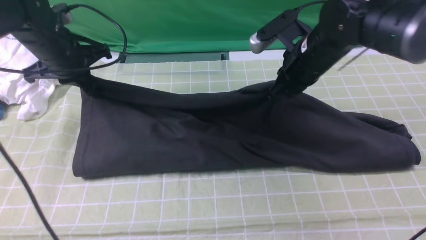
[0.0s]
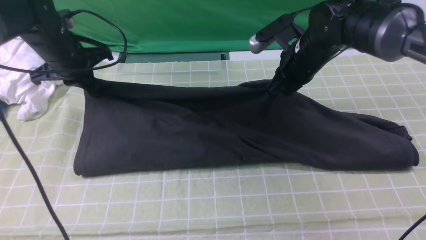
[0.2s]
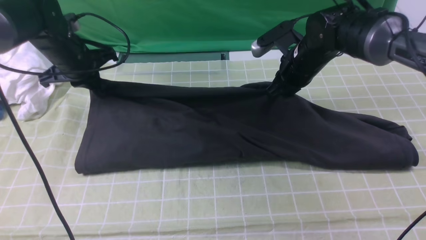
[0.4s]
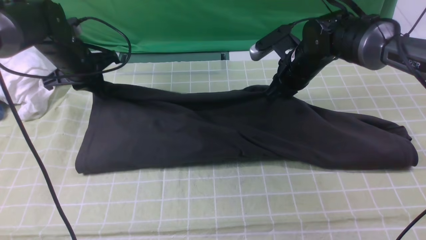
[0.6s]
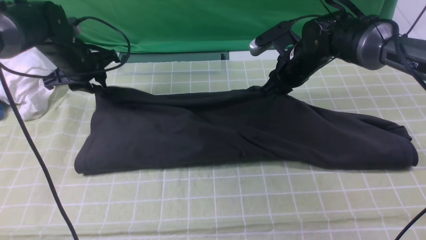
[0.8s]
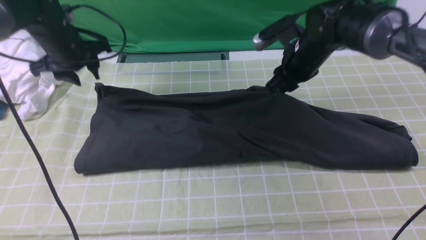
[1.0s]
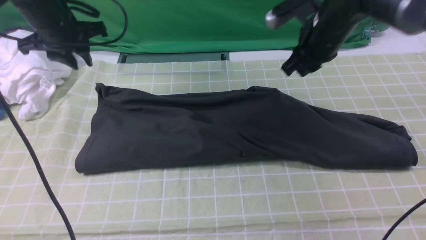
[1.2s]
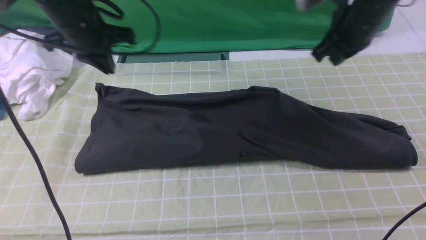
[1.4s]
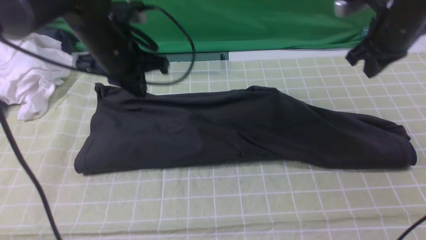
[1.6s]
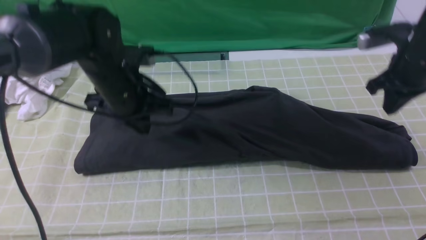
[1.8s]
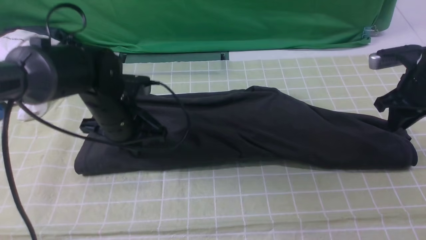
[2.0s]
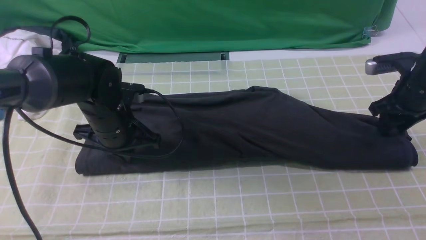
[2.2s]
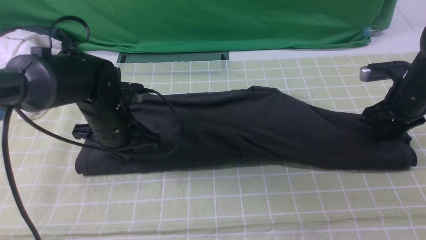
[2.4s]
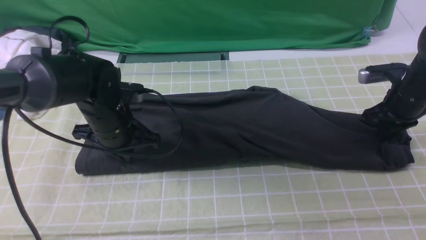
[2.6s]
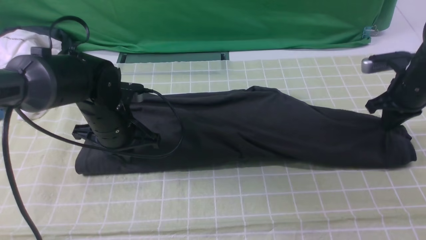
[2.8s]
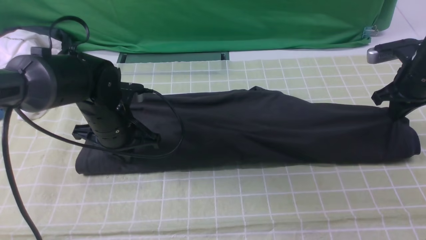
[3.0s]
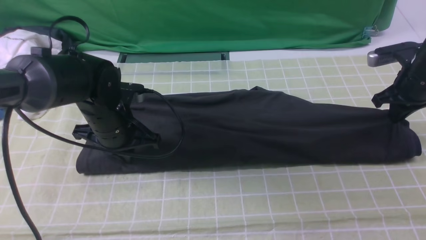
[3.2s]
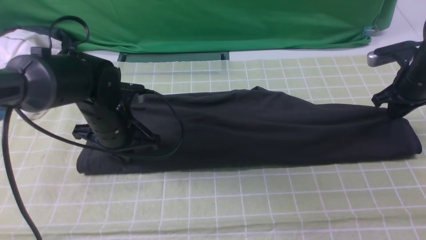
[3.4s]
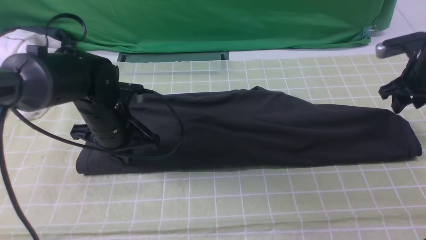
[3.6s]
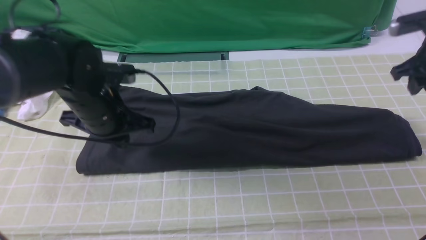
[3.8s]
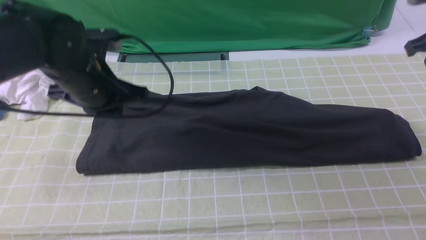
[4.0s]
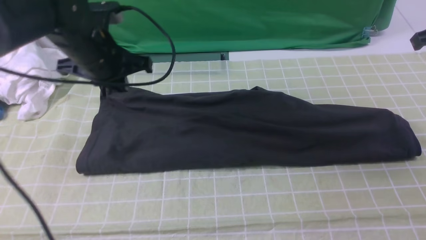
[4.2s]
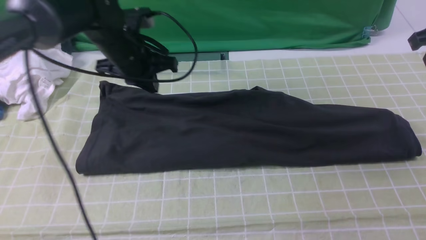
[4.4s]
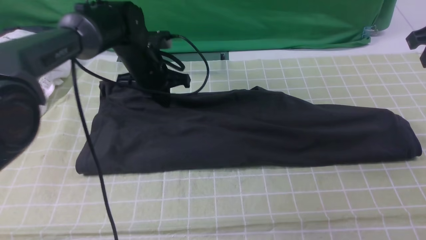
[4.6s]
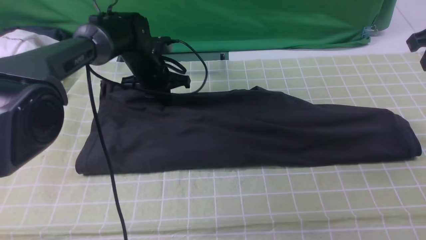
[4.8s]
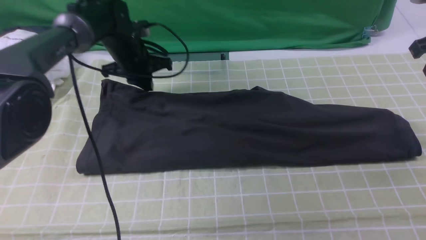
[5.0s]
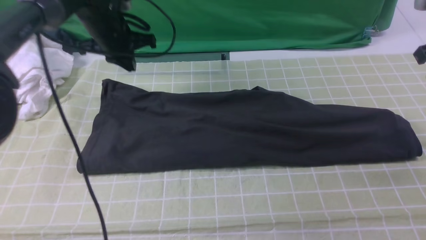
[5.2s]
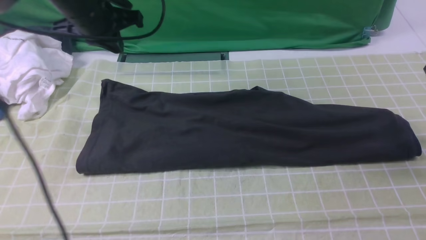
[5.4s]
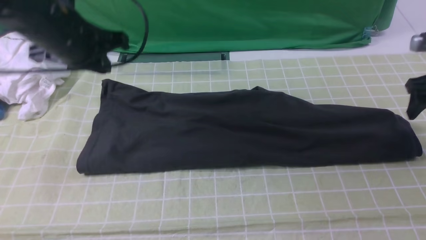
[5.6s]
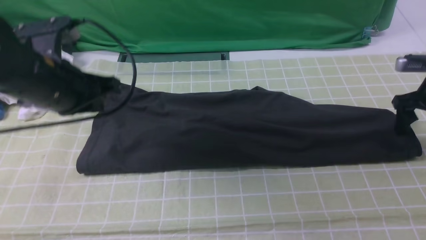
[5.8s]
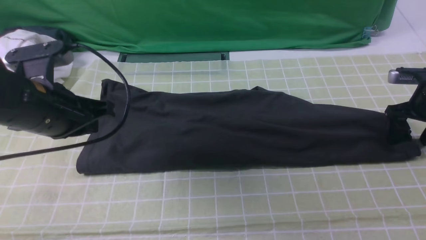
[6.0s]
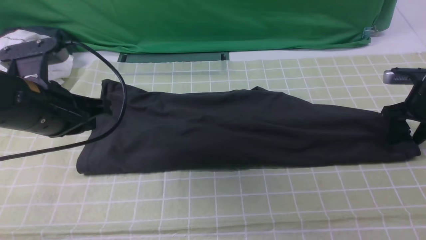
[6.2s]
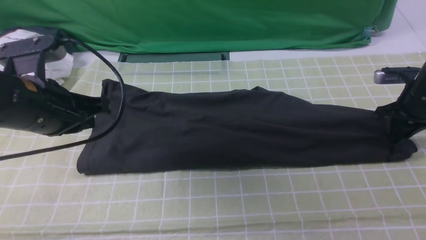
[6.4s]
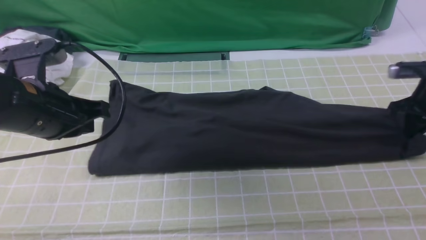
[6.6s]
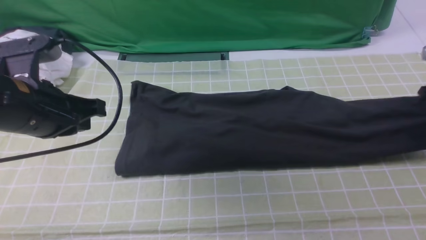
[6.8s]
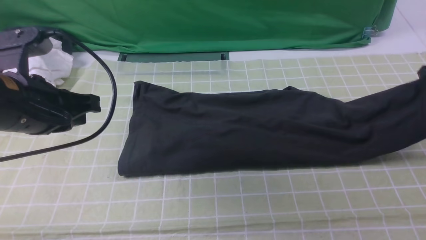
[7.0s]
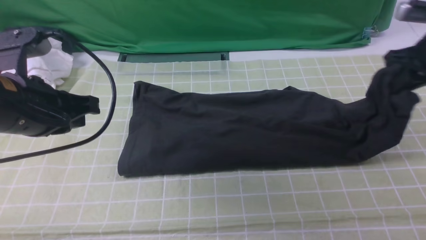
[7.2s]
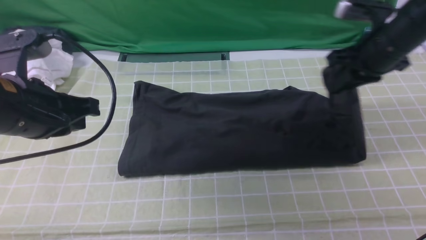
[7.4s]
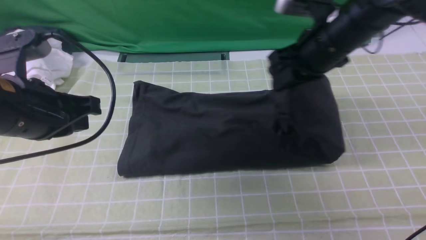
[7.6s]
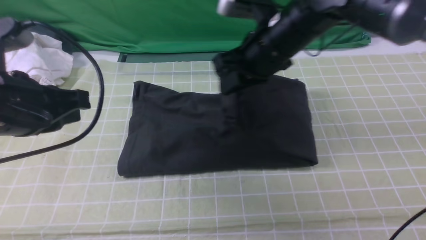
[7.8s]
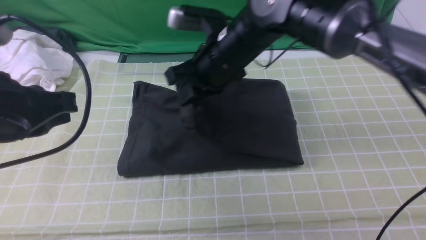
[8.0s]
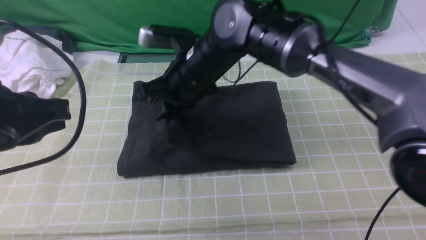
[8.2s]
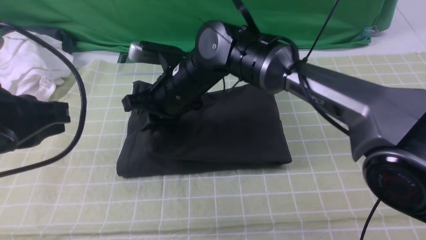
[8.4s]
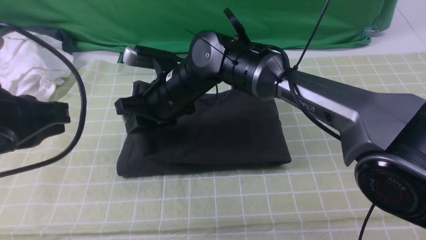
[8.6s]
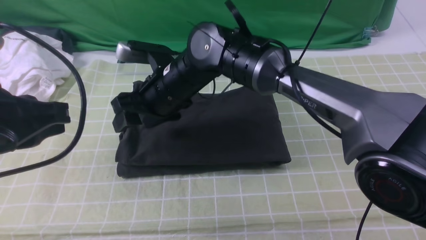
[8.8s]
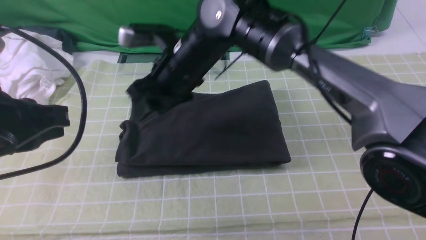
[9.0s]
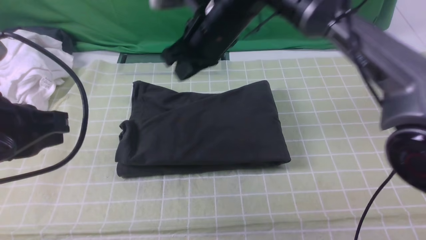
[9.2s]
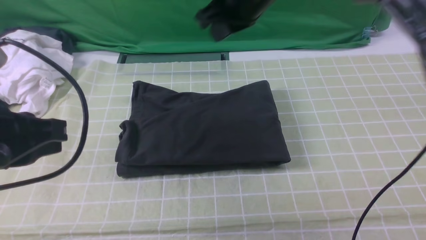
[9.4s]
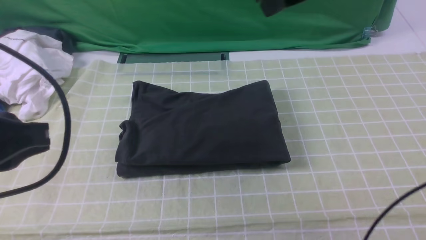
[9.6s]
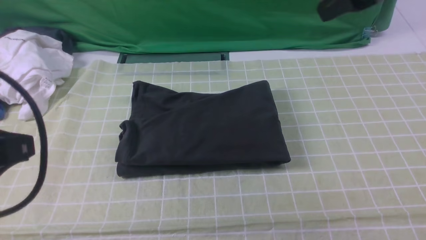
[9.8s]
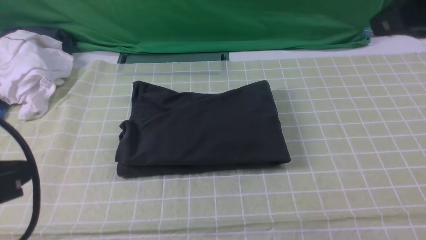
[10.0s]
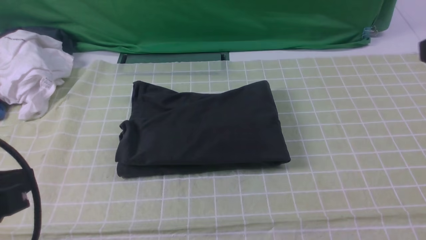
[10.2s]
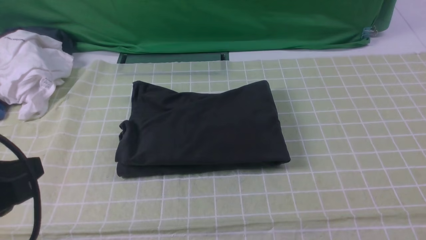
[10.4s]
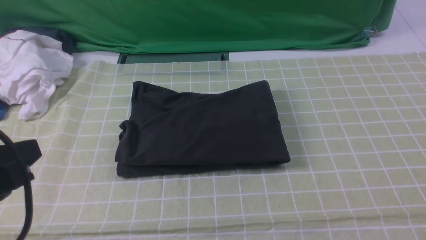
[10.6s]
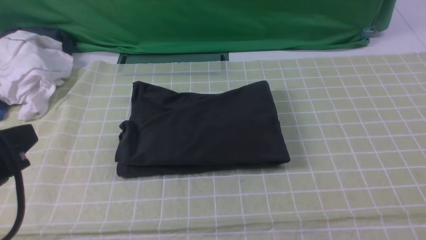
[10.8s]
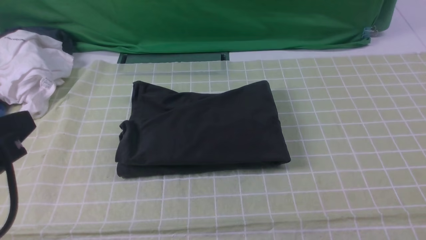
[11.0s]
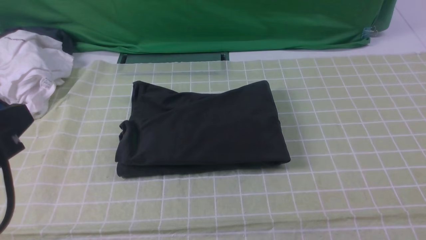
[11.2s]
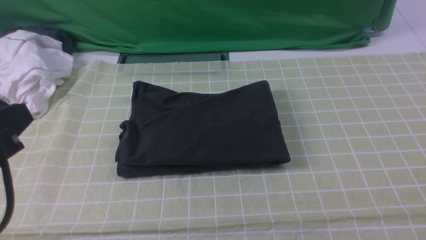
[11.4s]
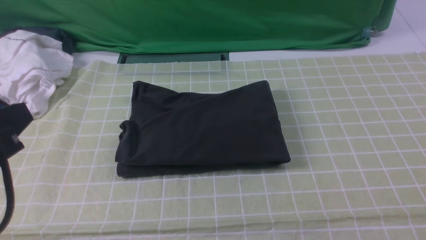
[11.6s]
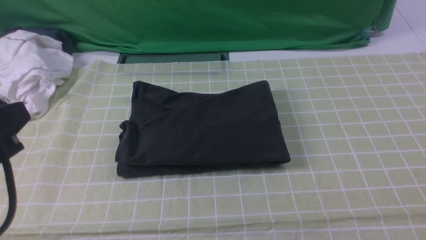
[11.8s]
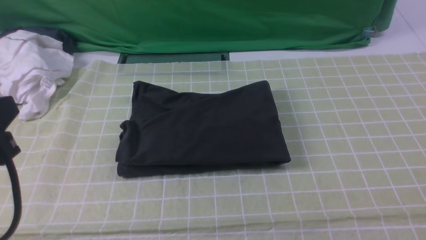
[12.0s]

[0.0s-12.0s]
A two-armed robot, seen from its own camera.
Step, 1.2s to 6.4s: use the right arm to clamp the right edge of the fabric.
Step, 6.6s to 8.8s: use the right arm to drag the right edge of the fabric to the left and folds it over the left edge.
0.0s to 1.6s: Both grippers move to the right, roughly 10 cm. The left gripper opens, then closes again. Meanwhile the right gripper opens, then closes once more.
1.6s to 3.0s: The right gripper moves downward and to the right, about 10 cm, and opens, then closes once more, while the left gripper moves downward, approximately 10 cm.
3.0s to 4.4s: The left gripper heads forward and upward, covering approximately 10 cm, while the right gripper heads upward, covering roughly 15 cm, and opens, then closes again.
4.4s to 6.0s: The right gripper is displaced downward by approximately 15 cm, and opens, while the left gripper moves backward, about 15 cm.
6.0s to 7.6s: The right gripper is displaced to the left and upward by approximately 30 cm, and closes. Meanwhile the left gripper ends up roughly 5 cm from where it was.
7.6s to 9.0s: The right gripper moves to the left, about 15 cm, and opens, while the left gripper heads backward, covering approximately 5 cm.
9.0s to 10.4s: The right gripper moves to the right and backward, some 50 cm, and closes; the left gripper shifts approximately 10 cm backward.

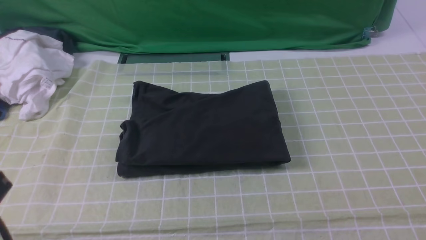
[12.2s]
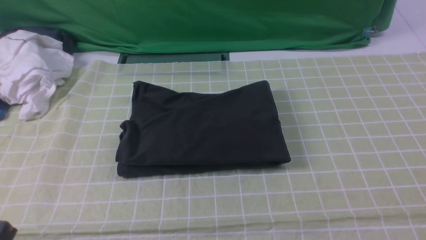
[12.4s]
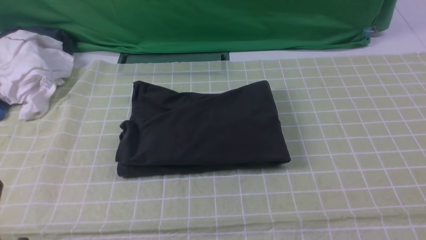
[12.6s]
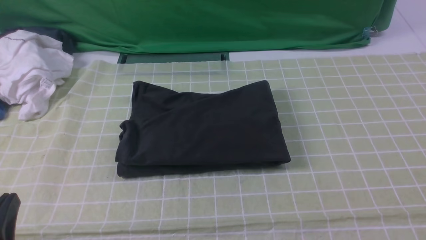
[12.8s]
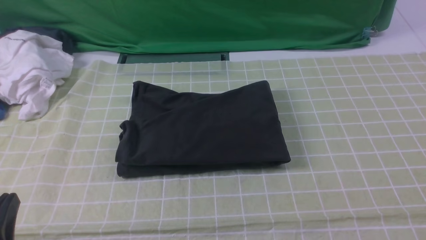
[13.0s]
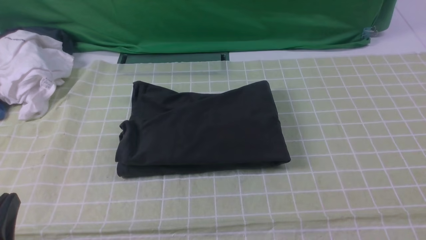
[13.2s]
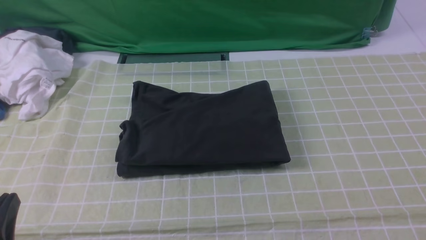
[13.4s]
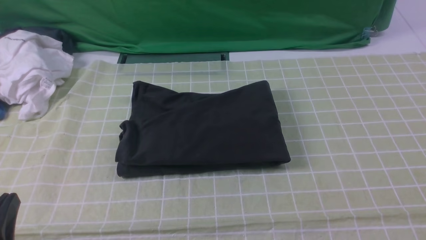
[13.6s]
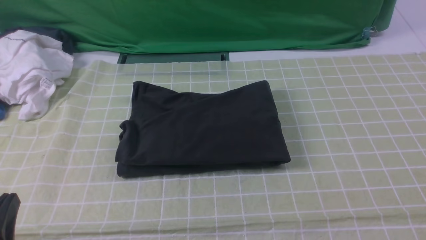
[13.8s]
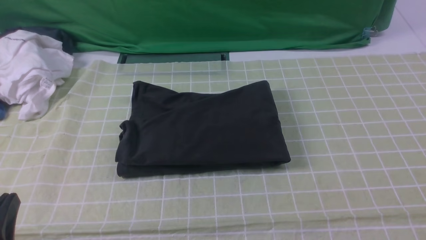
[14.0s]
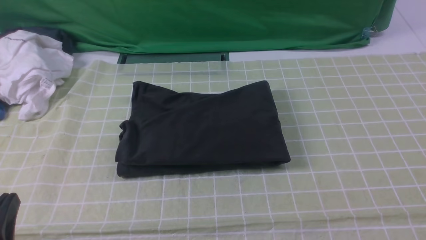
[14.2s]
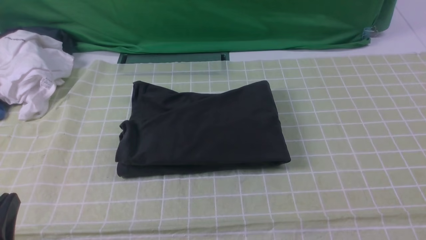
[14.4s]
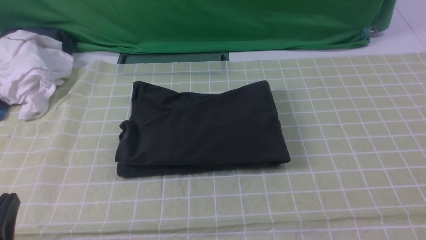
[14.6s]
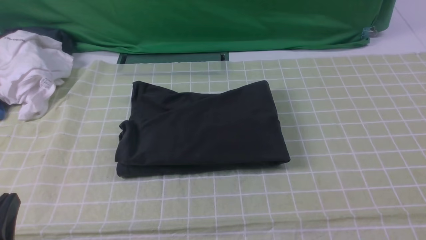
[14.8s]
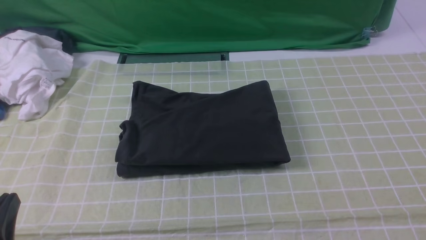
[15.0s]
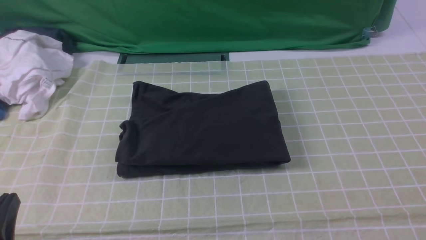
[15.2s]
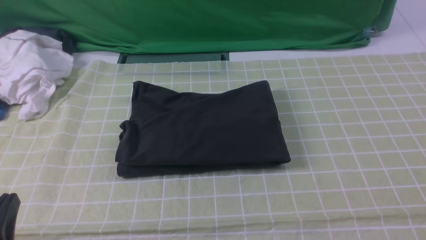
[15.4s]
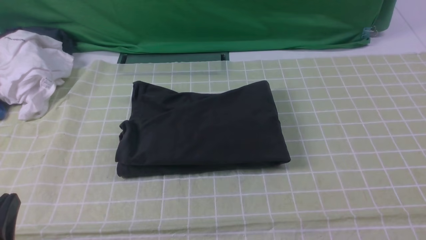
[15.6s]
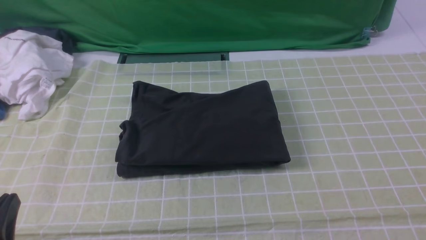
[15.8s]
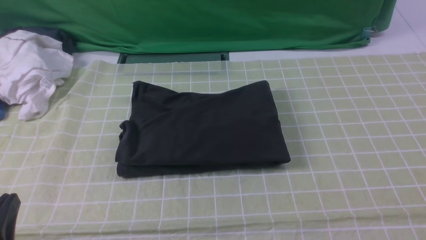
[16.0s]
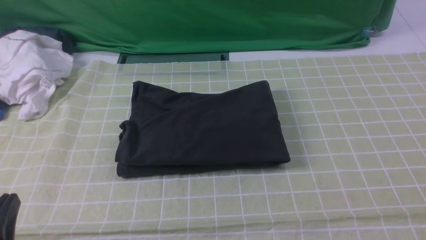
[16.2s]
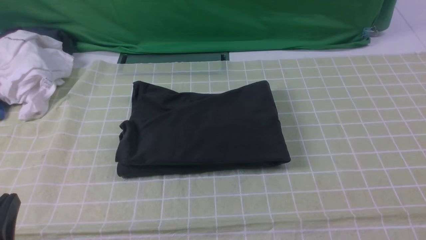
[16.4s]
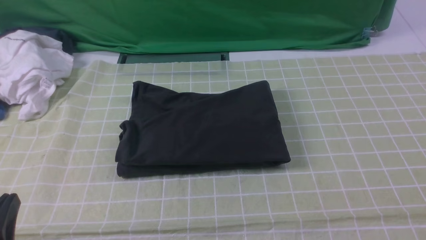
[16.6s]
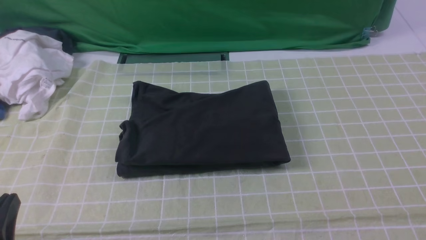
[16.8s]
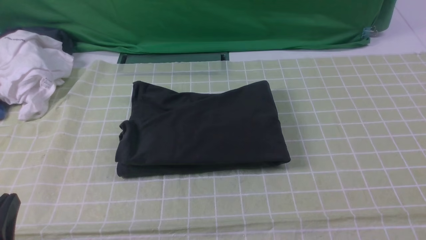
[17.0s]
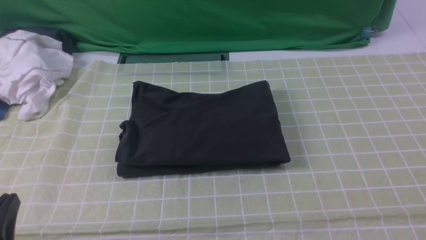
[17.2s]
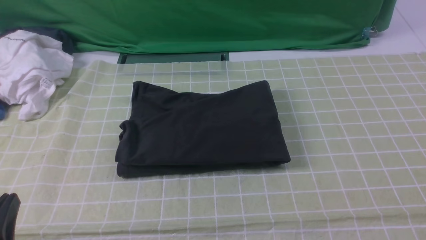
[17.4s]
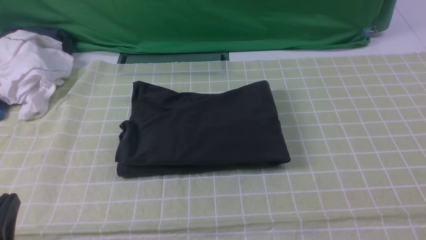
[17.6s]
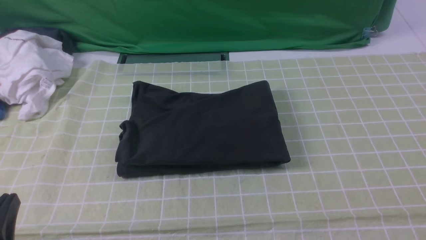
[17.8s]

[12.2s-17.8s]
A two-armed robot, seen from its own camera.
12.2s to 13.6s: The left gripper travels downward by about 10 cm.
16.4s to 17.8s: Both grippers stay about where they are.
